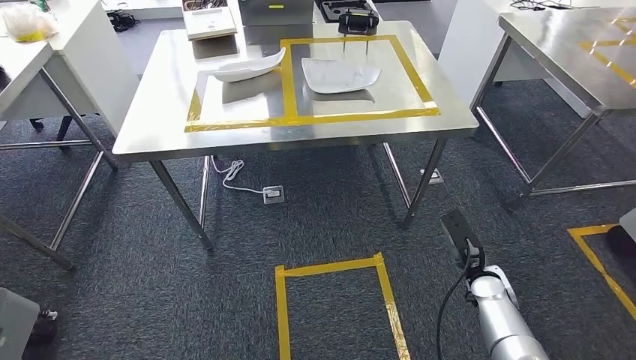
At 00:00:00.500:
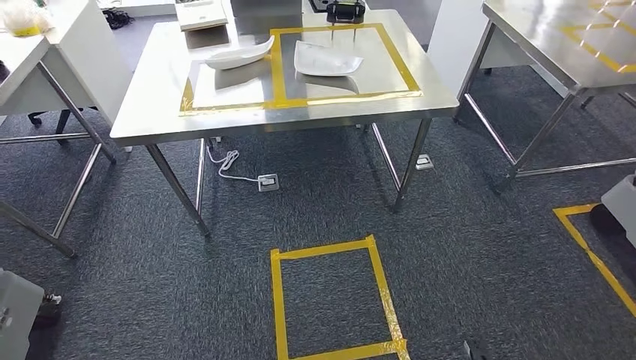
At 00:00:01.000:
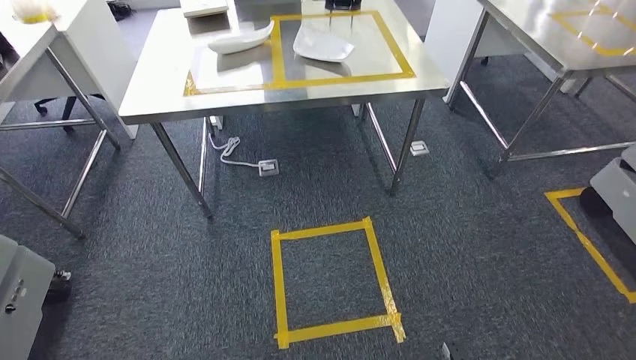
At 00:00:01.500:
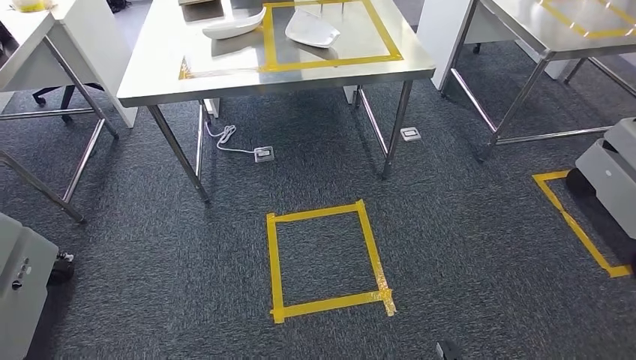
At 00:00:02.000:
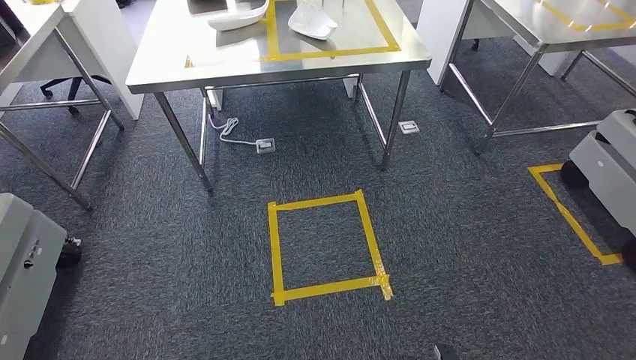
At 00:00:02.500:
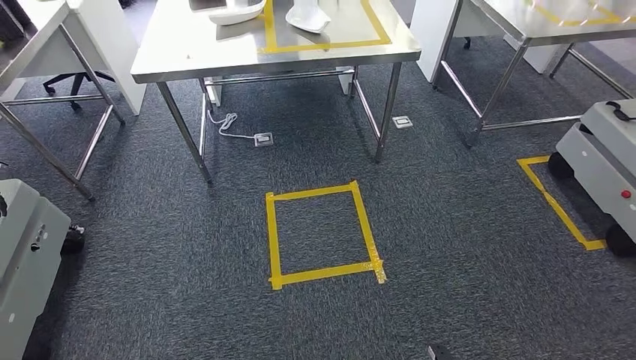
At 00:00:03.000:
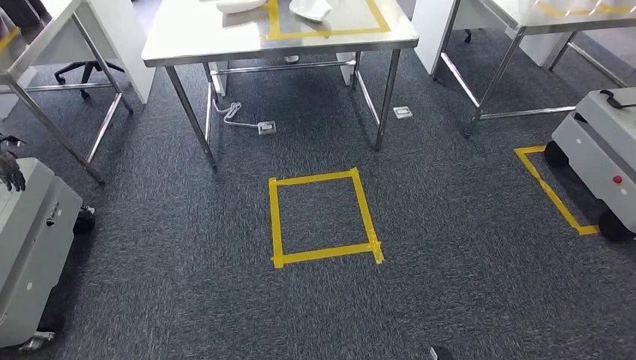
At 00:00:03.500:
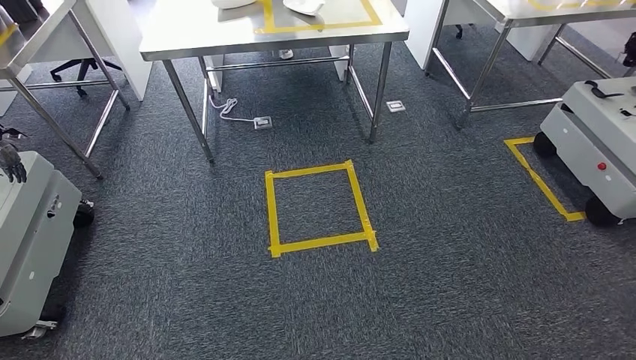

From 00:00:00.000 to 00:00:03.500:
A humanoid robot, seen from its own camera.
Step, from 00:00:00.000 to 00:00:03.500: Return to the initial position at the workbench.
